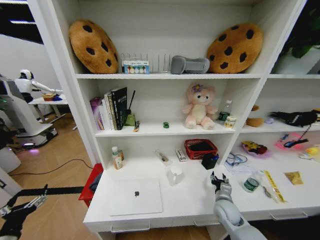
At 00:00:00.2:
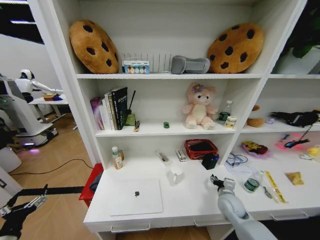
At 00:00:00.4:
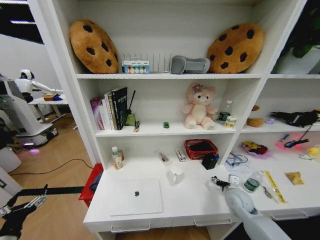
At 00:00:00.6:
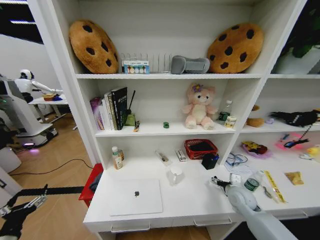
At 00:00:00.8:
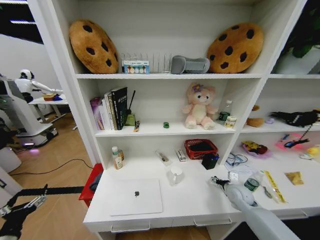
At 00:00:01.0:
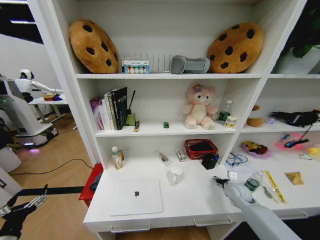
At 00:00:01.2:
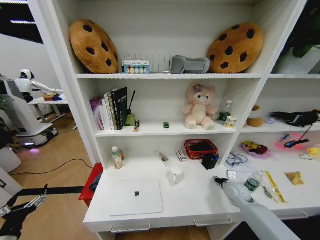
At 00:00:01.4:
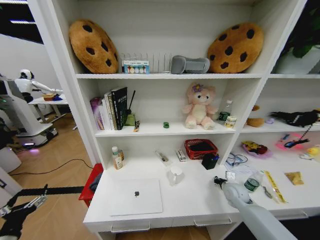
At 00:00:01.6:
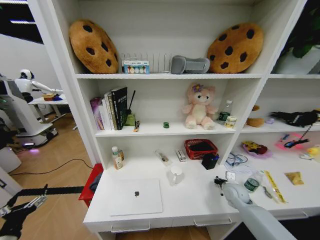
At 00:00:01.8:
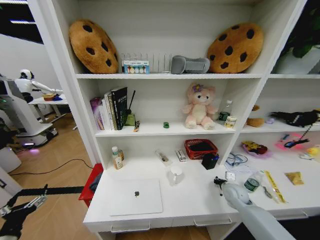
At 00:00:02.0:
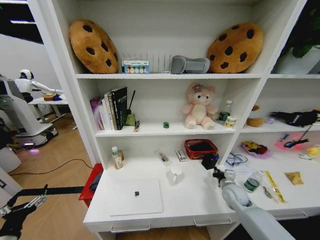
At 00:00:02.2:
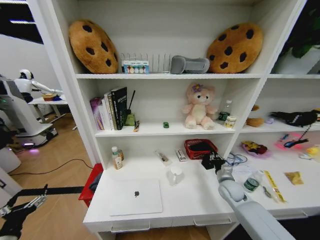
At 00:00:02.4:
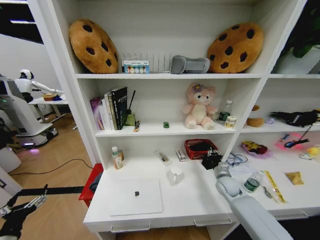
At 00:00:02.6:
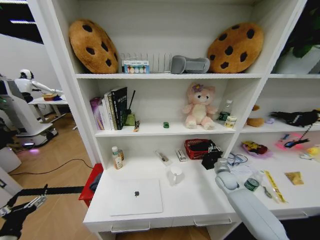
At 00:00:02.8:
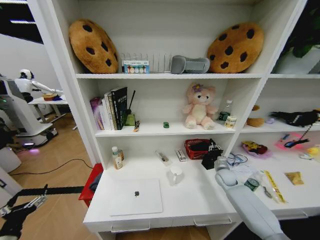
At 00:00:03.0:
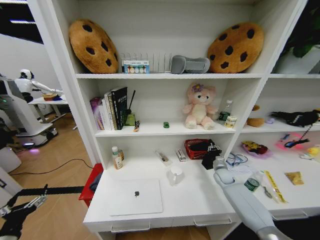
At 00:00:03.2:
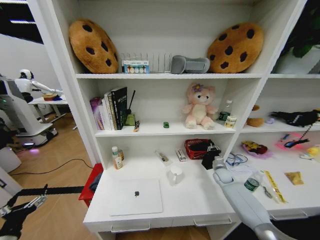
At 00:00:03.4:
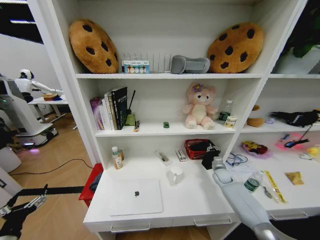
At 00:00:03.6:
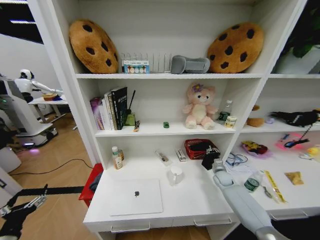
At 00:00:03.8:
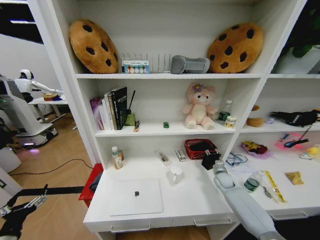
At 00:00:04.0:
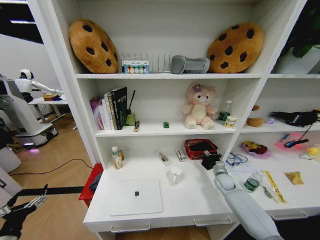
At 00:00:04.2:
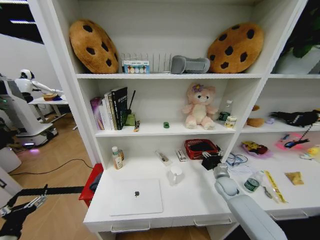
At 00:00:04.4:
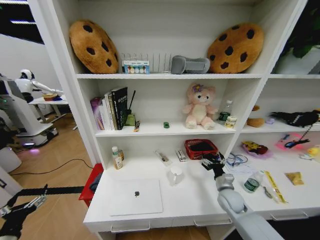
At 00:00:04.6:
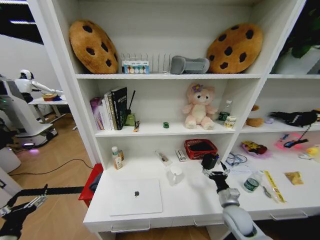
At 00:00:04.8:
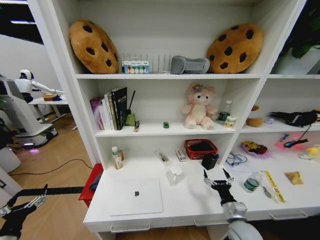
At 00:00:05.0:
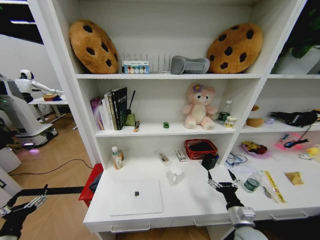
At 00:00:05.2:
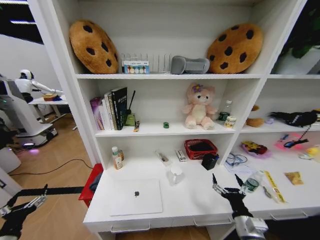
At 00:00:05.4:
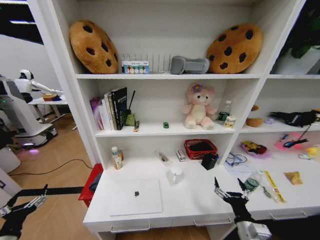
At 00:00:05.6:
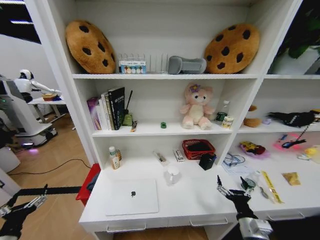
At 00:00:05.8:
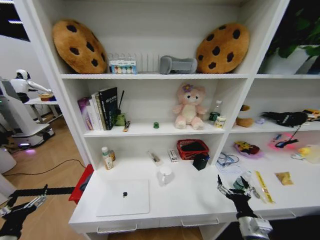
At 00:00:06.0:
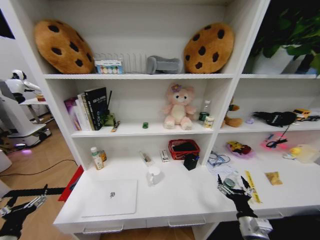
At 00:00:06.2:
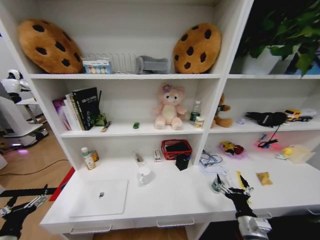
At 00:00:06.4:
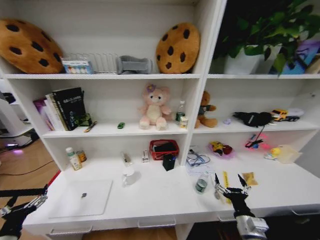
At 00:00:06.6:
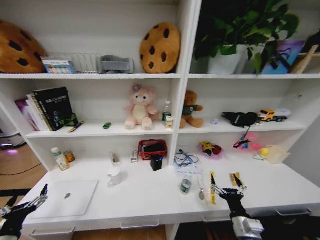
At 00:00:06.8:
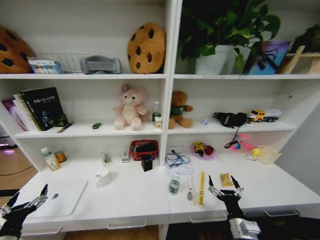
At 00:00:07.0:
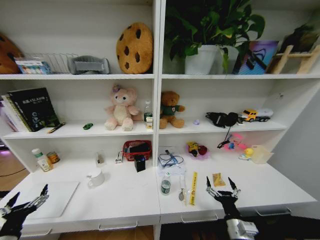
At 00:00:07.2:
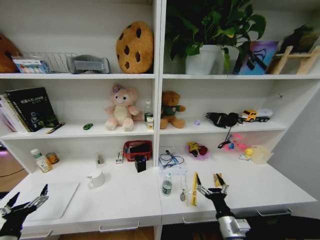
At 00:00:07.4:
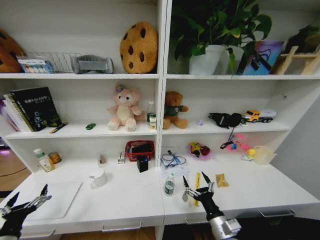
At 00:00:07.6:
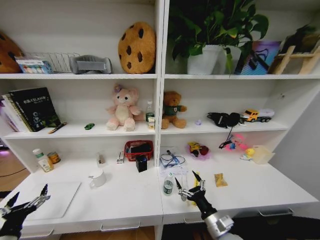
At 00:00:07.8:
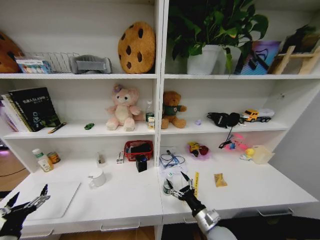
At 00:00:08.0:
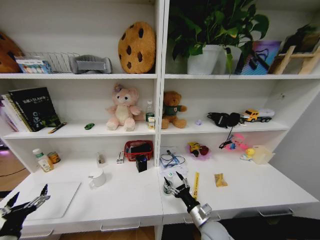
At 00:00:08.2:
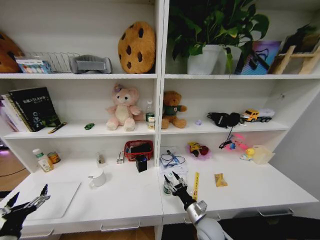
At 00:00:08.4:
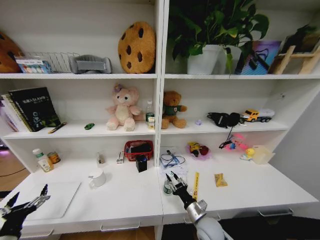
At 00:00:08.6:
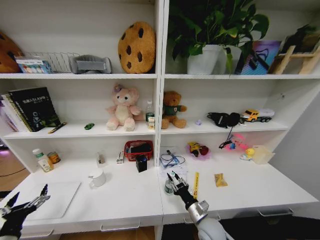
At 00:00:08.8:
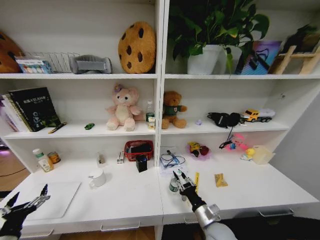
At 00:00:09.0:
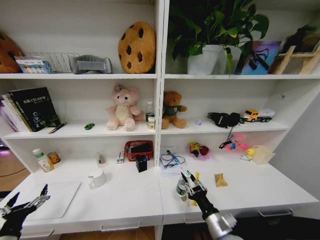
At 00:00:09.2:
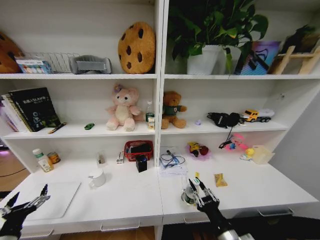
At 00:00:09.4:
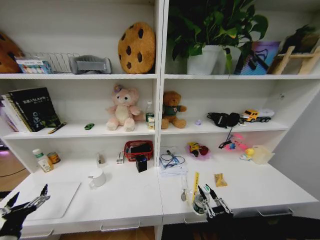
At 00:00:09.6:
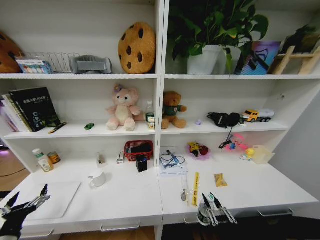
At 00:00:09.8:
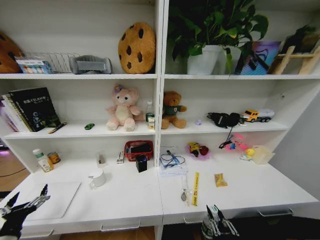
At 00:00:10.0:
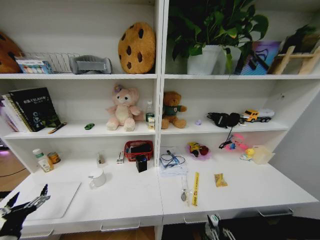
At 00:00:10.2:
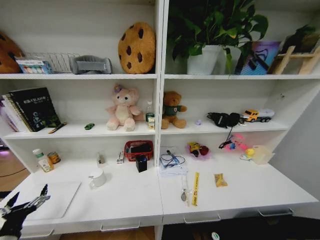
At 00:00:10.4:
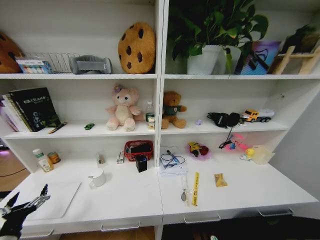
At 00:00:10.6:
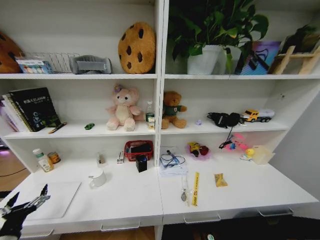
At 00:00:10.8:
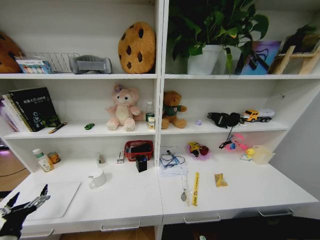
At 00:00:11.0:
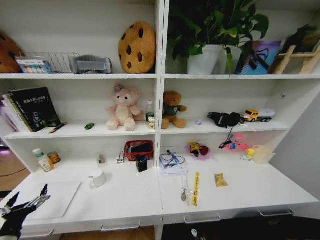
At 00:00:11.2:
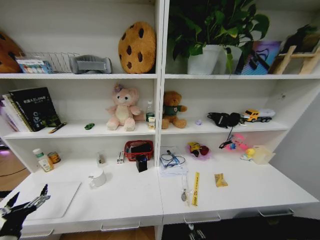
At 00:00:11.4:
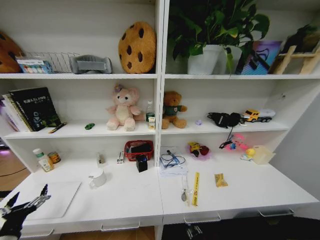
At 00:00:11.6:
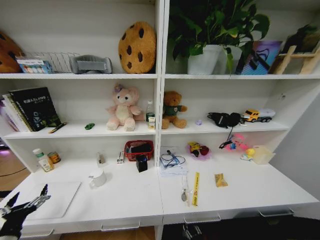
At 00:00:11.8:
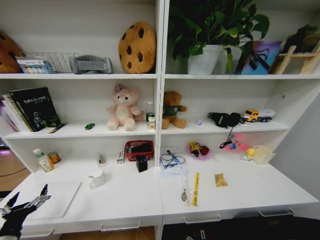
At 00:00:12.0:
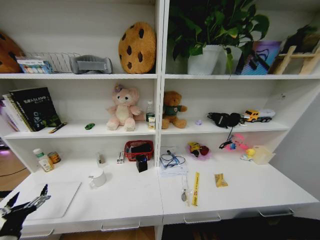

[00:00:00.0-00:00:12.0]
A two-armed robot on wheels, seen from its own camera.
Task of the whole recording: Organize the objects on the table.
00:00:00.0 to 00:00:01.6: The right gripper goes about 10 cm to the right and forward, and closes up.
00:00:01.6 to 00:00:03.0: The right gripper is displaced forward by roughly 10 cm.
00:00:03.0 to 00:00:04.4: The right gripper travels backward and to the left by about 15 cm, and opens up.
00:00:04.4 to 00:00:06.0: The right gripper is displaced backward by roughly 20 cm.
00:00:06.0 to 00:00:07.6: The right gripper goes some 10 cm to the left.
00:00:07.6 to 00:00:09.0: The right gripper closes.
00:00:09.0 to 00:00:10.4: The right gripper travels backward and downward by approximately 25 cm.

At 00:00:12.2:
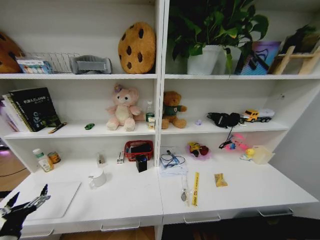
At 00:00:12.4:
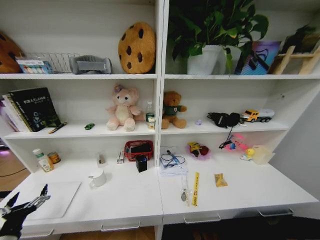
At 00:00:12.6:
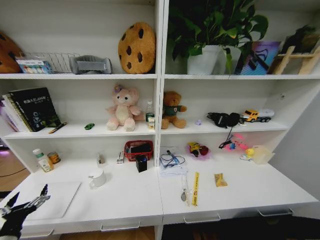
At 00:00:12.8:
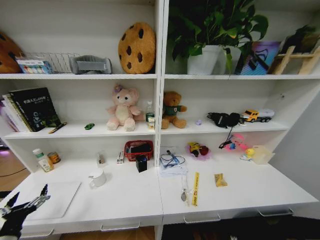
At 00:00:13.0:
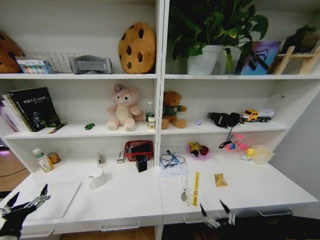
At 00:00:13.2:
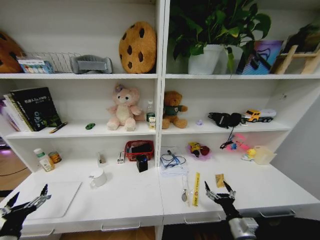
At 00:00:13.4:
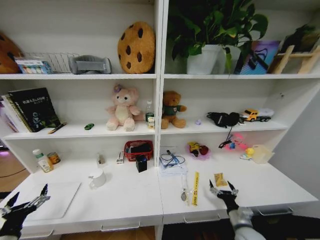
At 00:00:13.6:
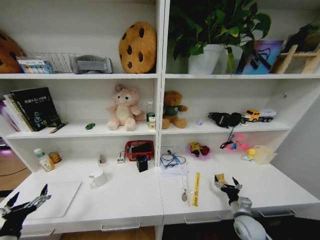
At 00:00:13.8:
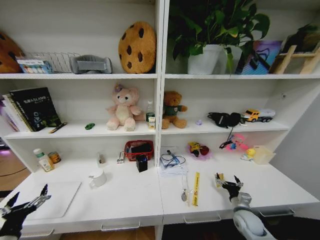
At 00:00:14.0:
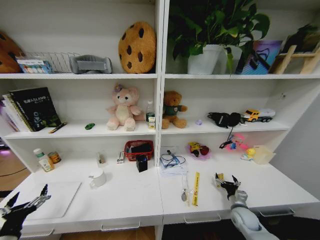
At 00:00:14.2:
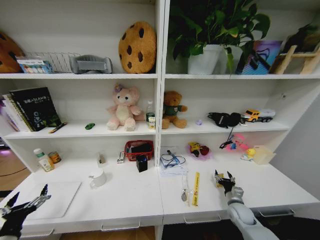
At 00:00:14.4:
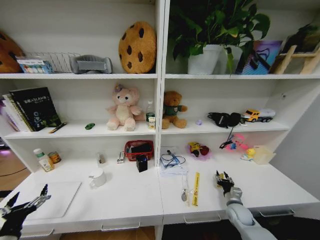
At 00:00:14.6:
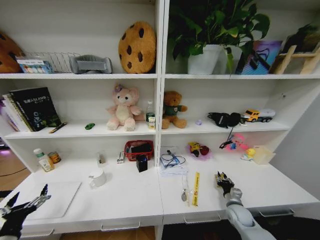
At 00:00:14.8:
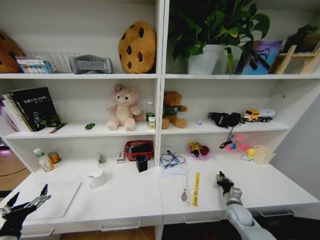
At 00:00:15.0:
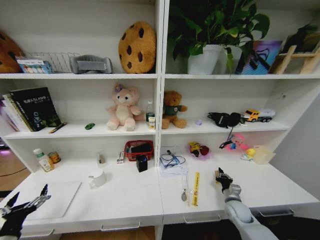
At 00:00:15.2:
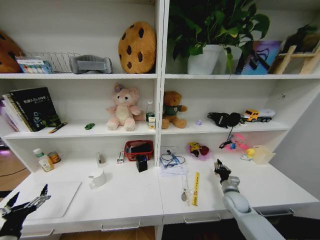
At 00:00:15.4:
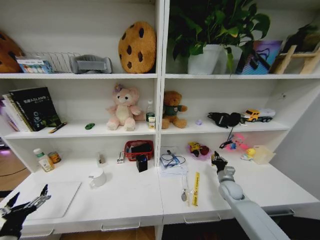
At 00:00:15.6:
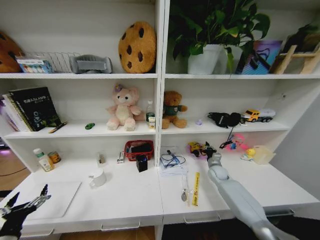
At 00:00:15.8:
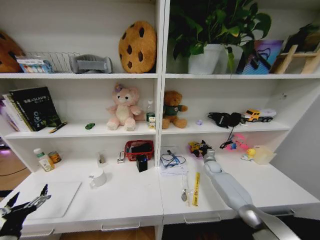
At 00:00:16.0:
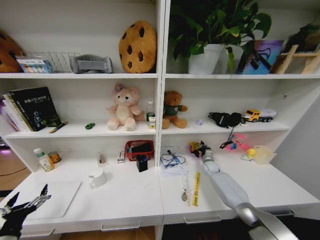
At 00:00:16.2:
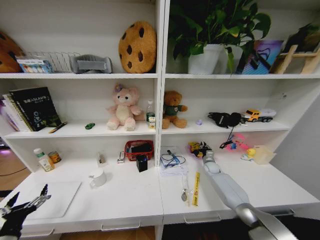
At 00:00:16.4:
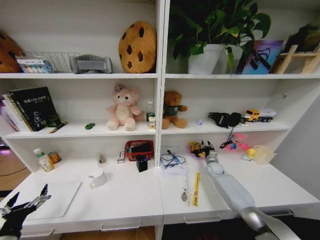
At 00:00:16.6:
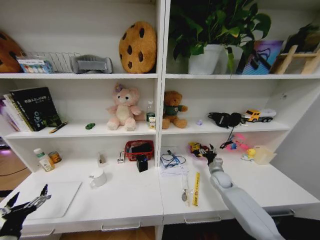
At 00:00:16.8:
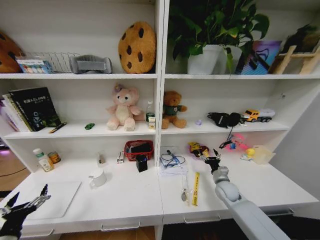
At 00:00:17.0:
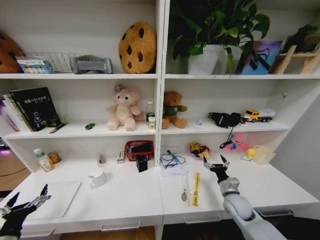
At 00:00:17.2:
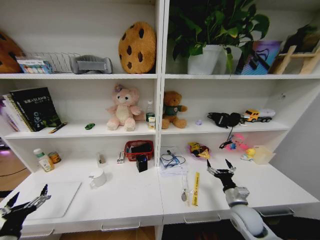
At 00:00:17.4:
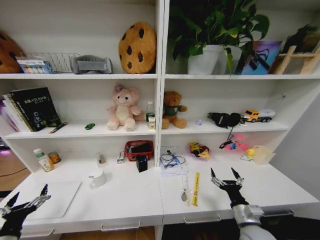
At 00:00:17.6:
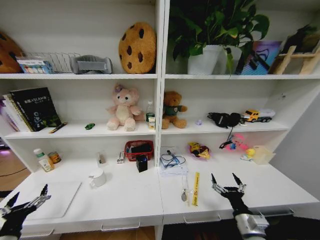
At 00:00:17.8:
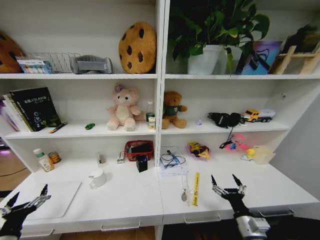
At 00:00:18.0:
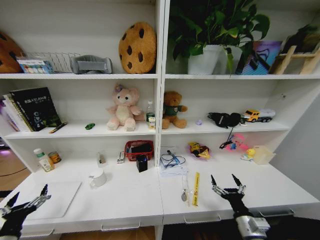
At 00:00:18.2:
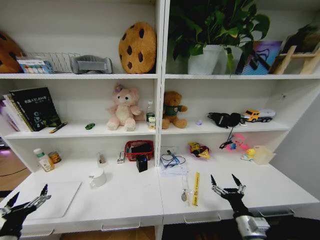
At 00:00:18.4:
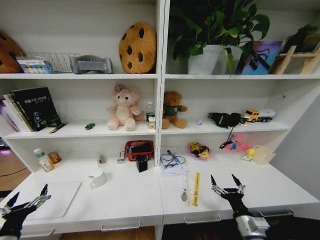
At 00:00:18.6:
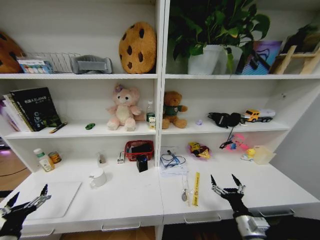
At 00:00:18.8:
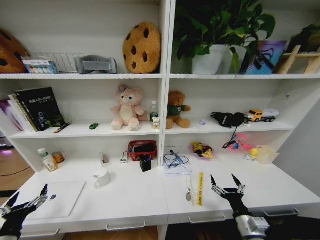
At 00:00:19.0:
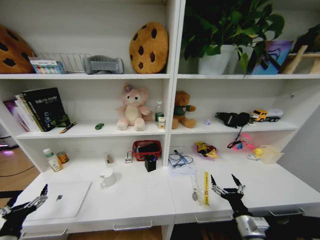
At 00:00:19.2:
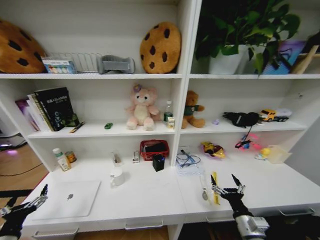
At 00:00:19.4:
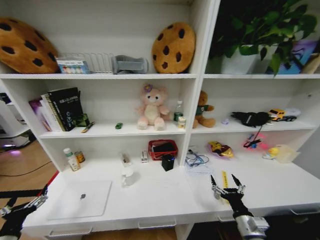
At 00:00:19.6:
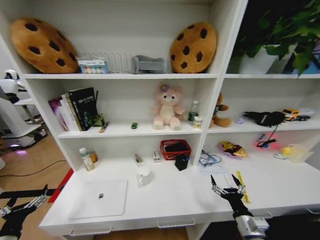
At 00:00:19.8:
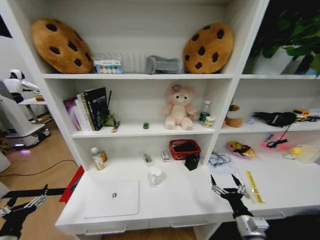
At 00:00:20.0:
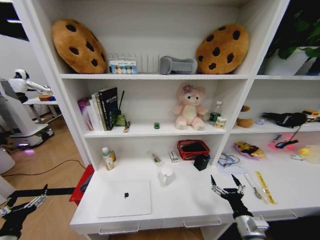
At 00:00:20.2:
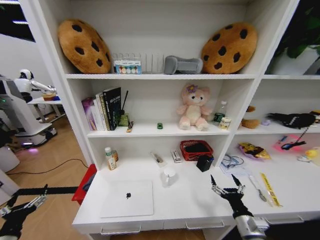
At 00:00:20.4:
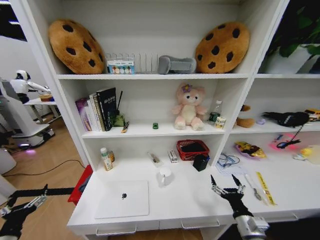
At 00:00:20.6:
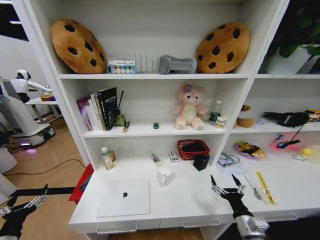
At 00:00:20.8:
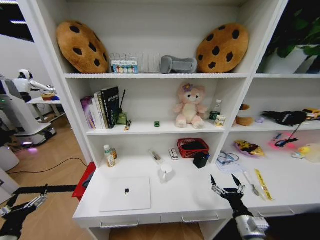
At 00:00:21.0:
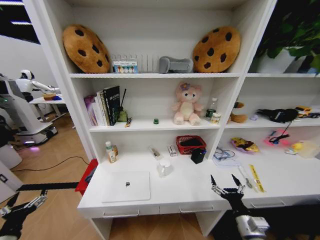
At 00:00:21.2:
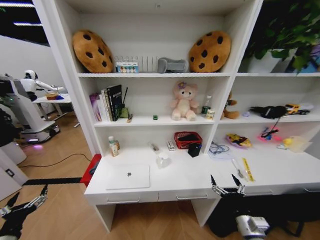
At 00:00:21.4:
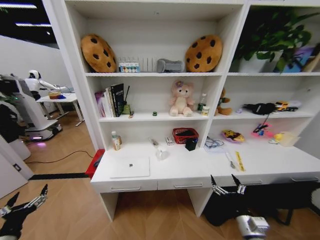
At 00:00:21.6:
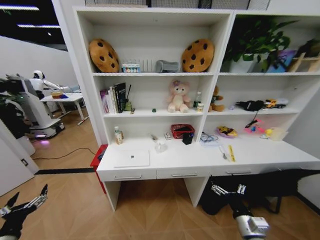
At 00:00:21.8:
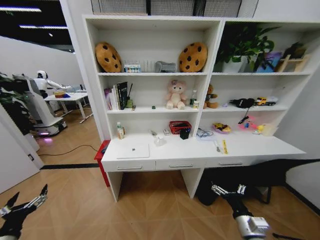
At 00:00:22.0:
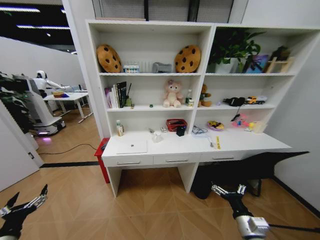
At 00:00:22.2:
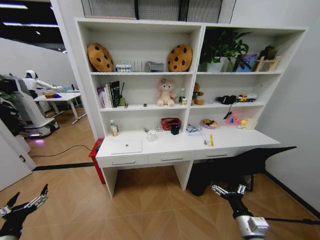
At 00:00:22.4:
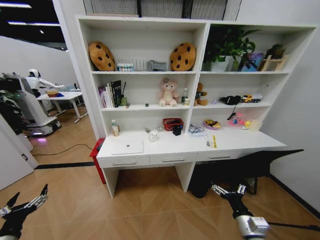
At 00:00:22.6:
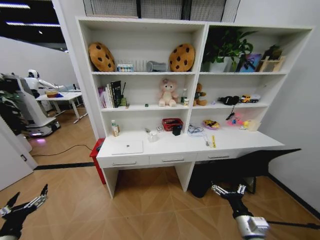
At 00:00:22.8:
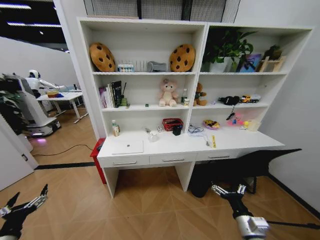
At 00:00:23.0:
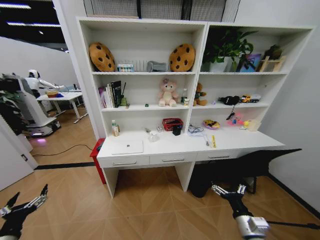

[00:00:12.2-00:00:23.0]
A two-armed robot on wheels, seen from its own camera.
Task of the whole recording: Organize the objects on the table.
00:00:12.2 to 00:00:13.8: The right gripper is displaced forward and upward by approximately 30 cm.
00:00:13.8 to 00:00:15.2: The right gripper travels forward by roughly 5 cm, and closes up.
00:00:15.2 to 00:00:16.8: The right gripper moves approximately 20 cm forward and comes back, and opens.
00:00:16.8 to 00:00:18.4: The right gripper moves backward, roughly 20 cm.
